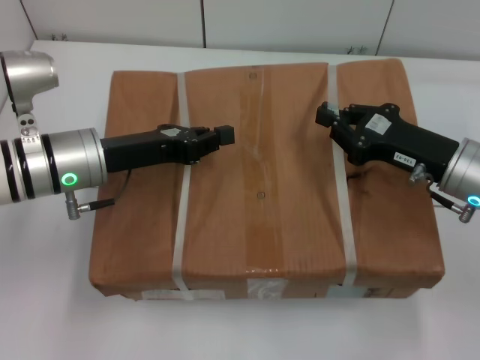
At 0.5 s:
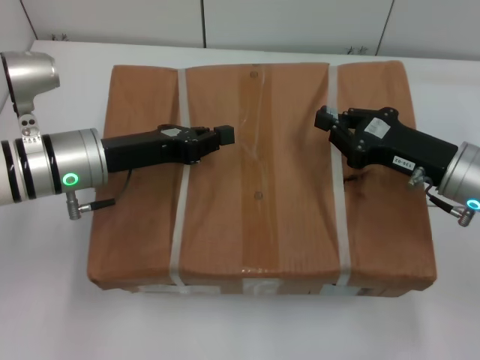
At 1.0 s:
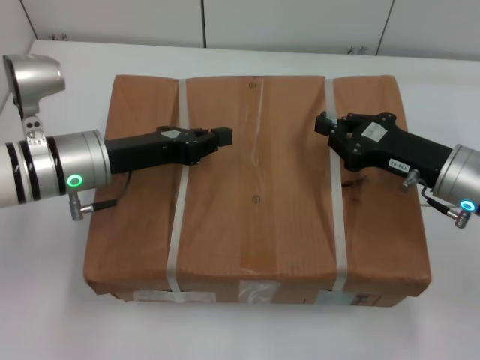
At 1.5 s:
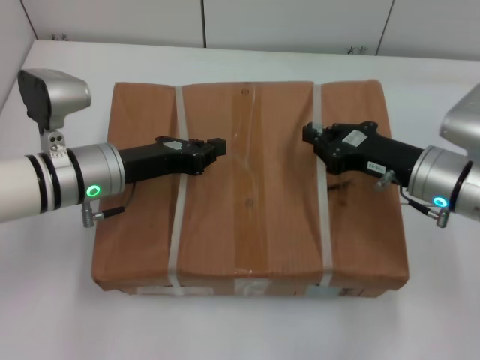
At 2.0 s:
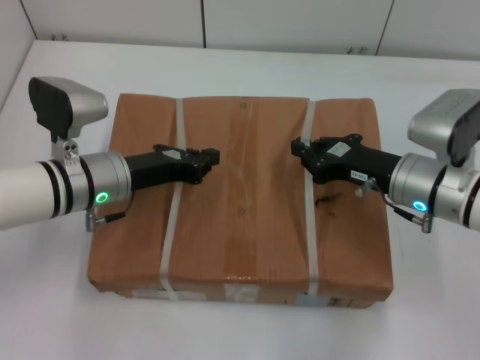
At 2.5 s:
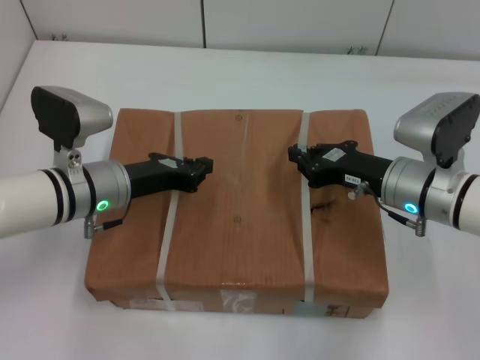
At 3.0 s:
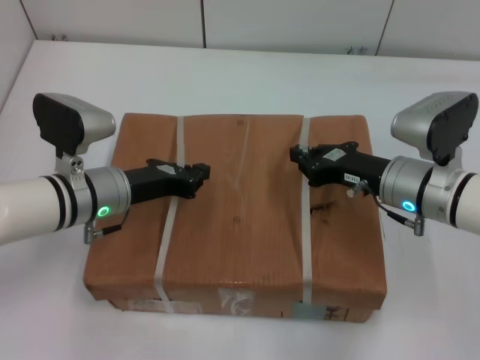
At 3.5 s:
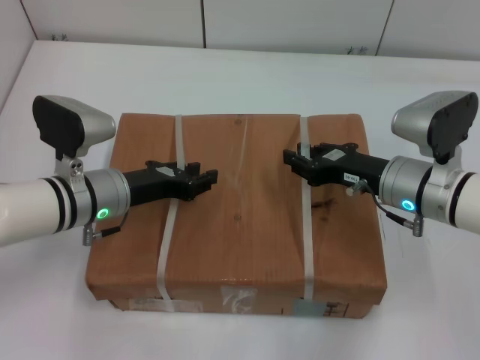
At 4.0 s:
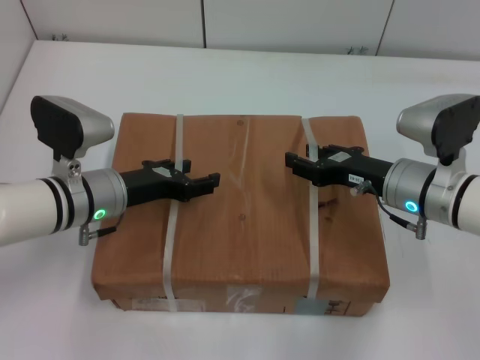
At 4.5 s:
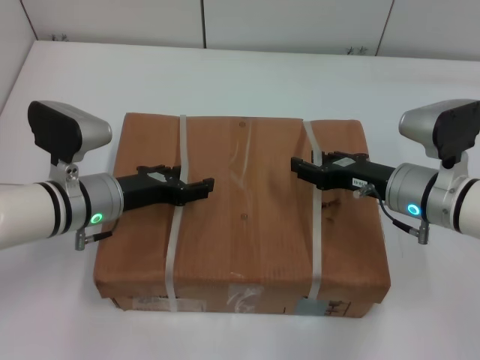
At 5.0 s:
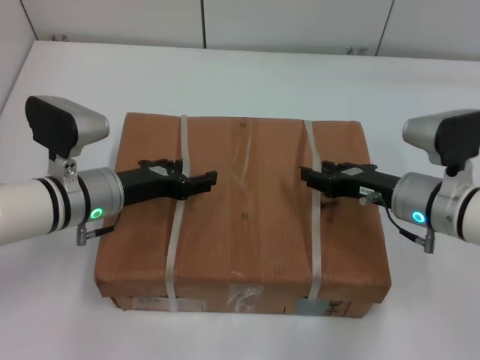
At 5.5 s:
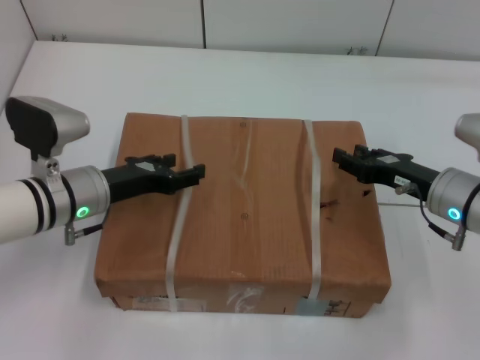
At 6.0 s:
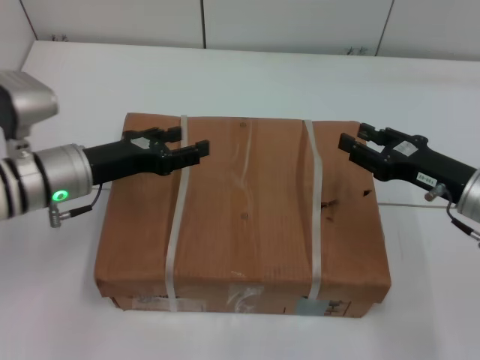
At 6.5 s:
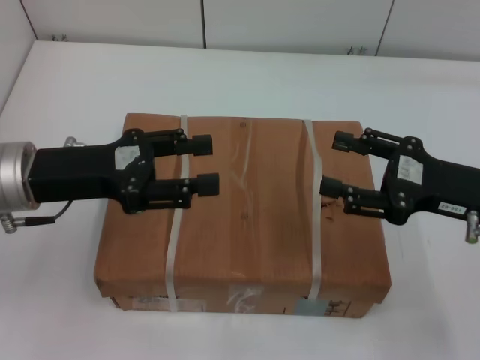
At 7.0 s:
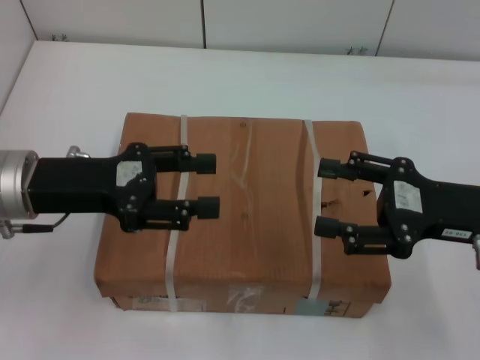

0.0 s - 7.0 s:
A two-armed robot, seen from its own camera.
Task of the whole recording: place the box on the table with both arms.
Step, 0.0 s - 3.0 s: Place the box on the table with left gripper.
Step, 0.0 s - 3.0 s: Place the box on the table with right gripper.
Step, 3.5 s - 4.5 s: Loosen the box on the table with left gripper.
Step, 3.5 s - 4.5 s: Loosen the box on the table with right gripper.
0.0 s - 2.0 s: The right gripper ends up roughly 5 cm from where it was.
3.5 s - 5.0 s: The right gripper opens up. The left gripper opens up.
5.0 s - 7.0 s: The right gripper moves upward, backward and to the right, approximately 10 cm, and opens up. Meanwhile the left gripper goes approximately 10 cm upward.
